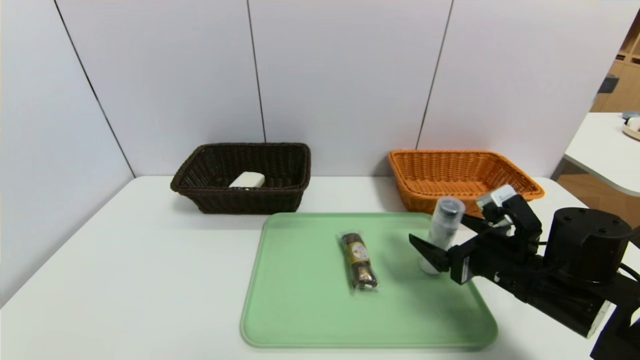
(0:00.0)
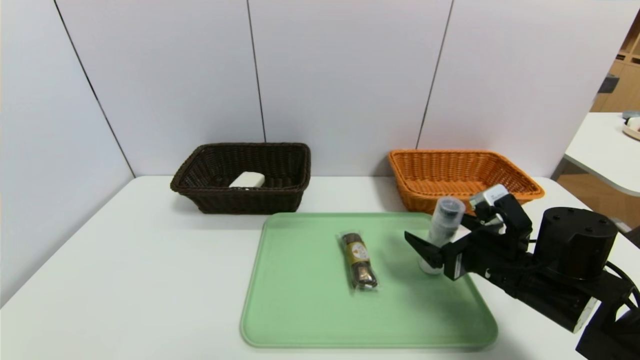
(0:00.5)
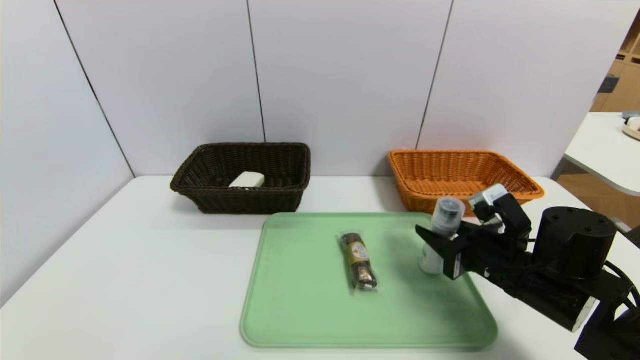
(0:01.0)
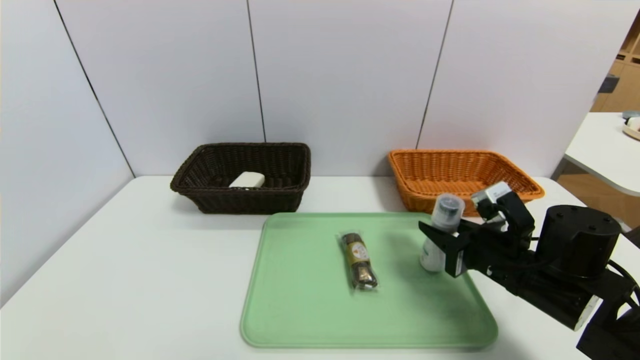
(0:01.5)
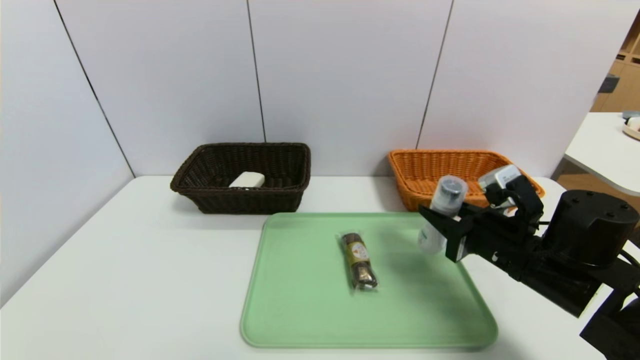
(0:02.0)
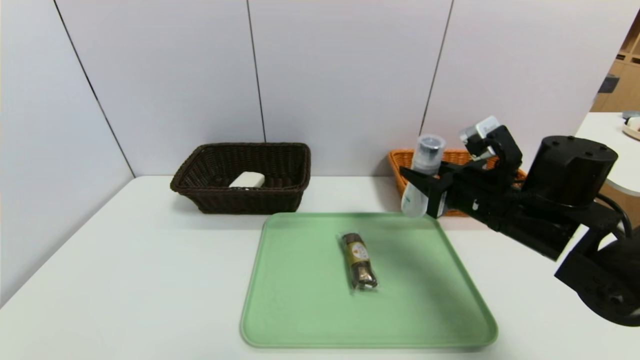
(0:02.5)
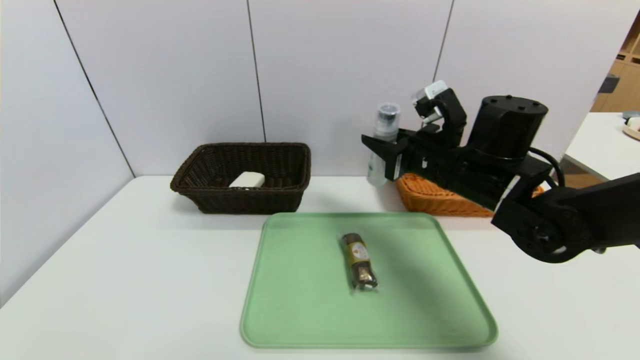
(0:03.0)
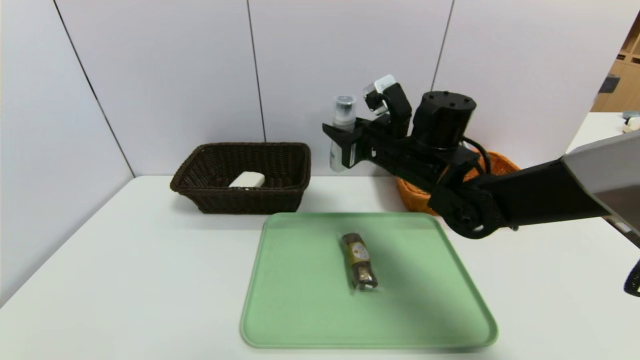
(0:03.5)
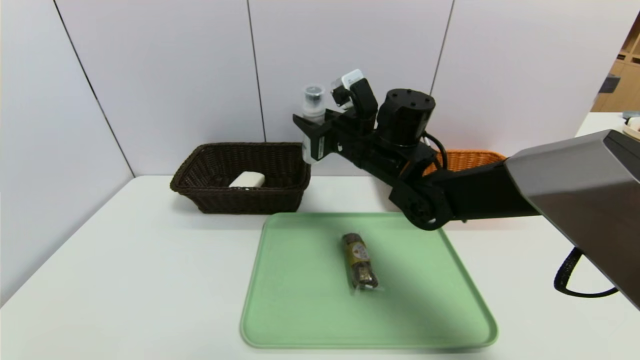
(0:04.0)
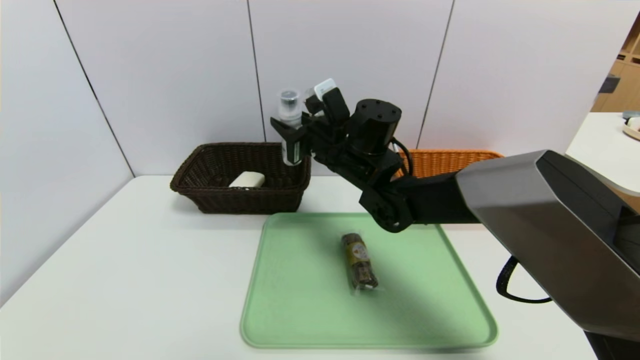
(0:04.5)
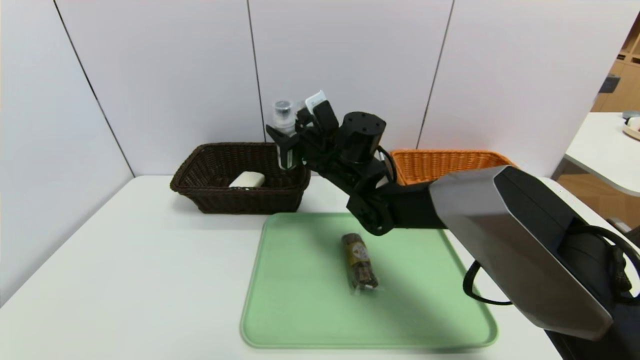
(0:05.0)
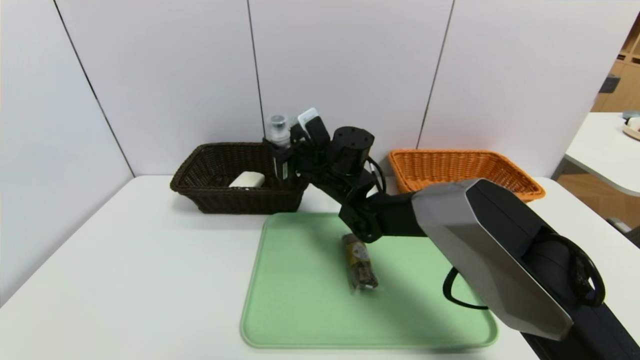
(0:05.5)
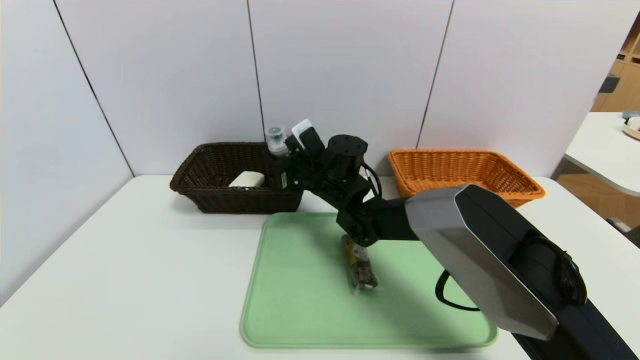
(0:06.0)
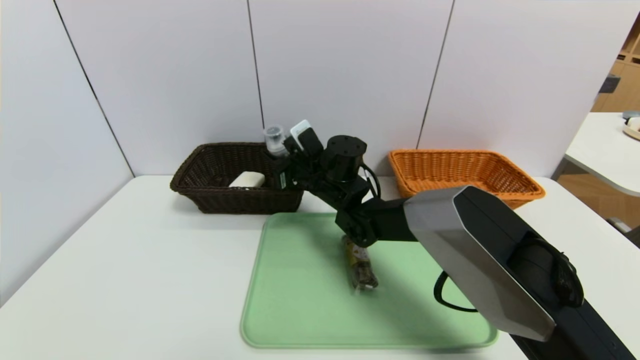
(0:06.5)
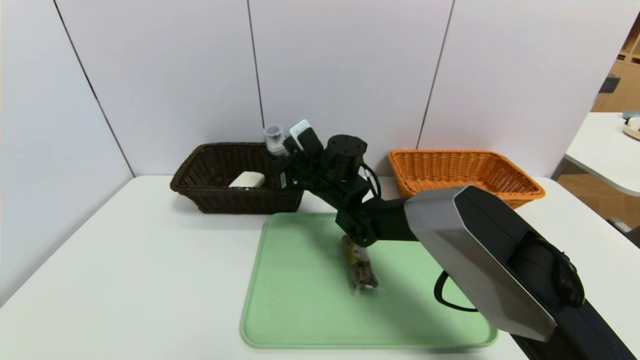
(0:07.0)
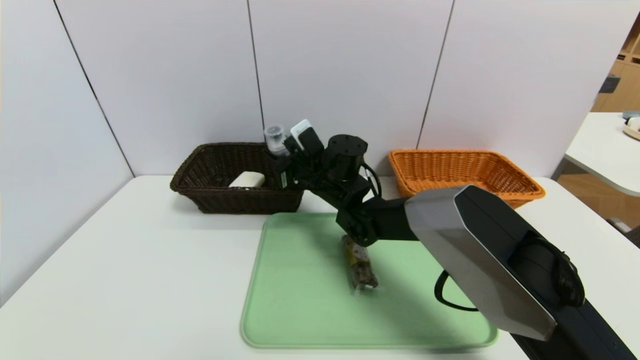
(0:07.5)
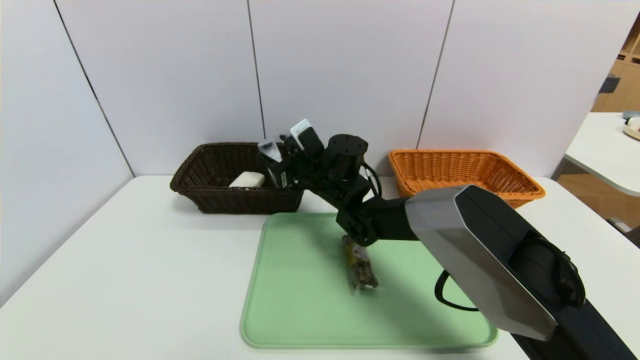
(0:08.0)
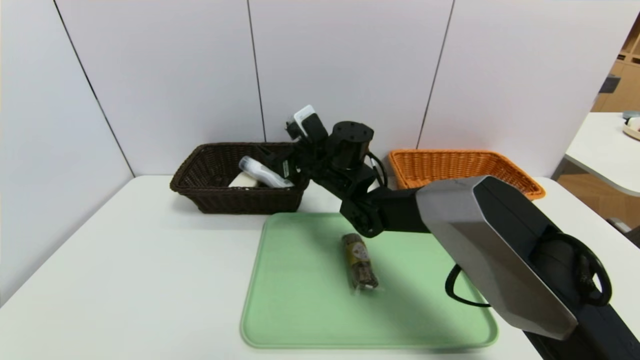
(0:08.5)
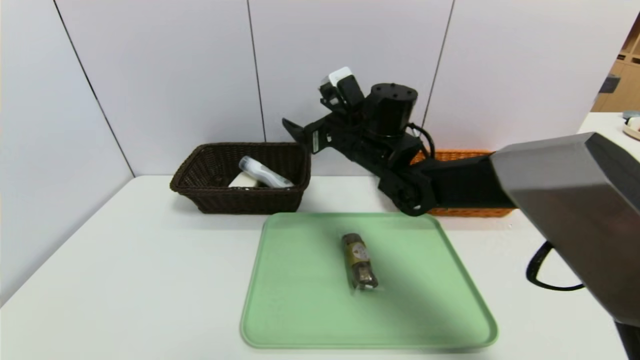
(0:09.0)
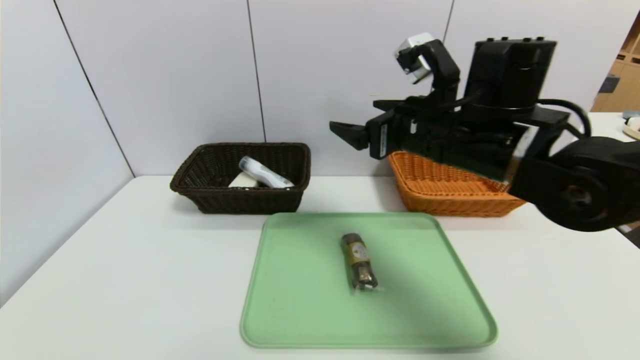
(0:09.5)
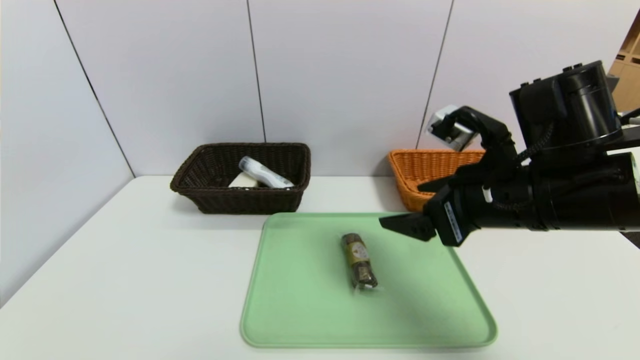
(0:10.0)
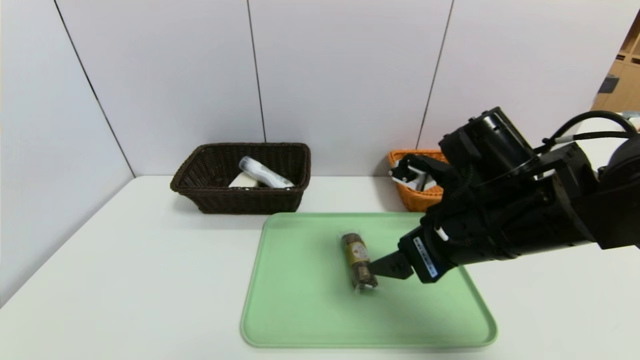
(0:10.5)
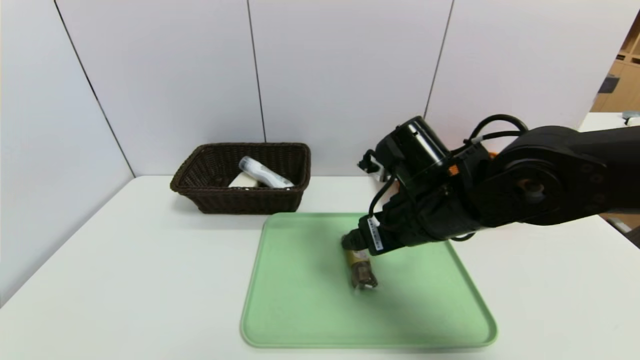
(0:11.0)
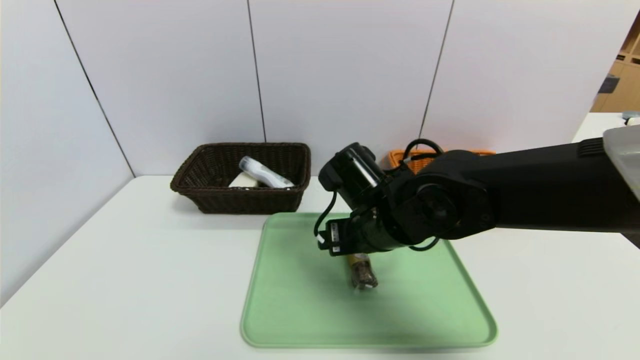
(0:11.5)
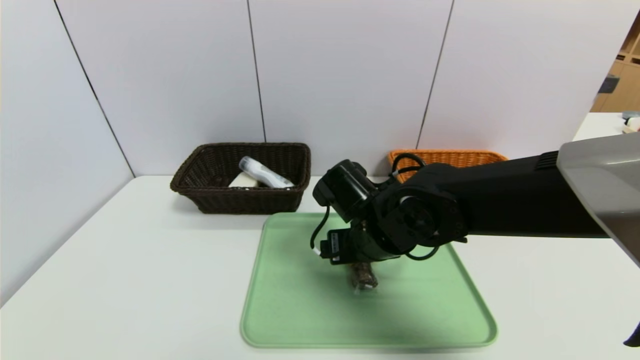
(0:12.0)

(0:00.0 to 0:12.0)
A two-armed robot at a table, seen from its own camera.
Task of the whole recording: place the food in the right basket with the right gripper, and place the non food items in the left basket with the left gripper.
0:00.0 - 0:02.0: The right gripper closes.
0:02.0 - 0:04.0: The right gripper is displaced to the left, forward and upward by about 25 cm.
0:04.0 - 0:06.0: The right gripper is displaced downward and to the left by roughly 10 cm.
0:06.0 - 0:08.0: Neither gripper changes place.
0:08.0 - 0:10.0: The right gripper travels backward, to the right and upward by roughly 30 cm, and opens its fingers.
0:10.0 - 0:12.0: The right gripper shifts about 15 cm to the left, downward and forward.

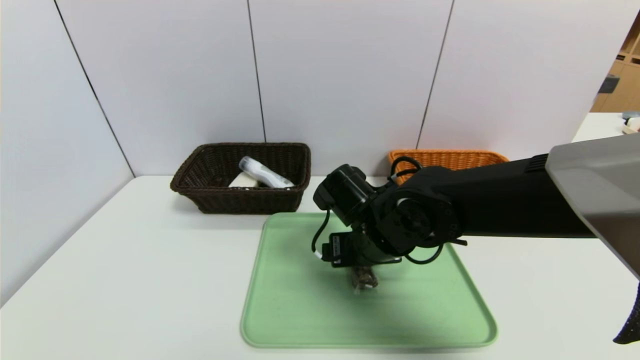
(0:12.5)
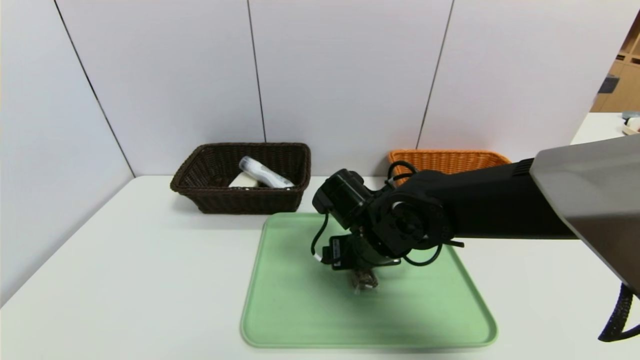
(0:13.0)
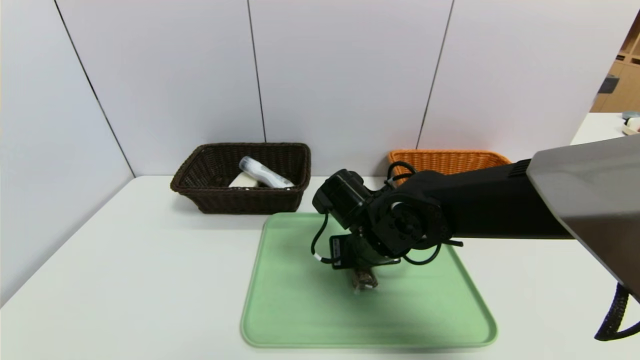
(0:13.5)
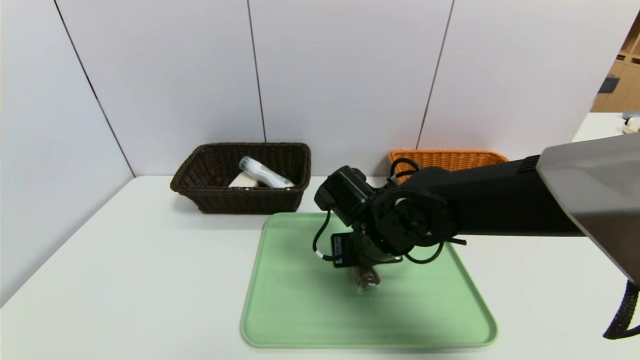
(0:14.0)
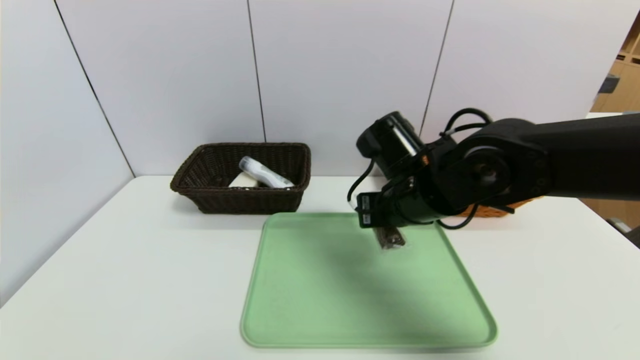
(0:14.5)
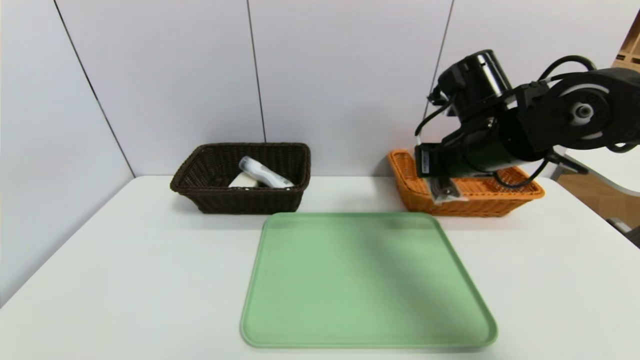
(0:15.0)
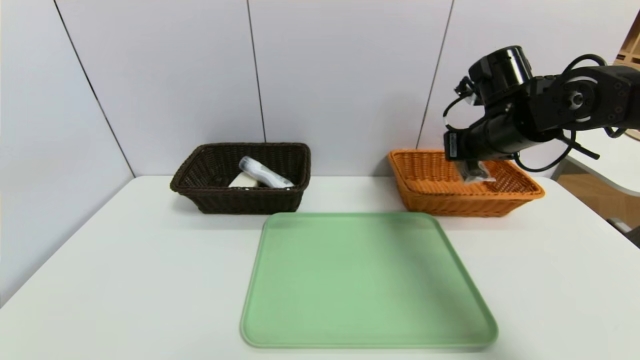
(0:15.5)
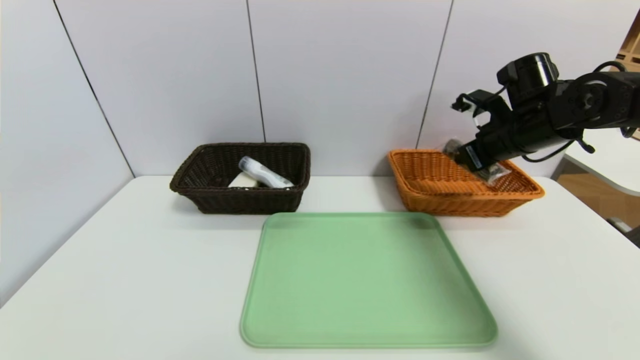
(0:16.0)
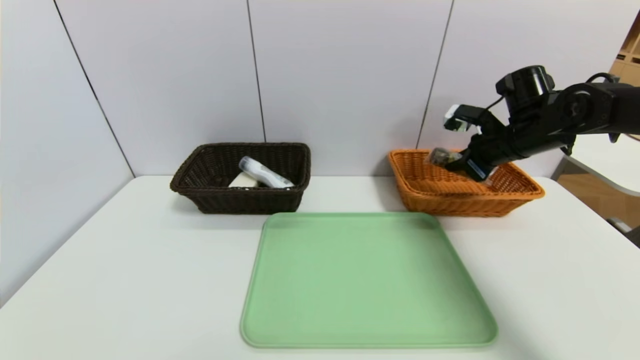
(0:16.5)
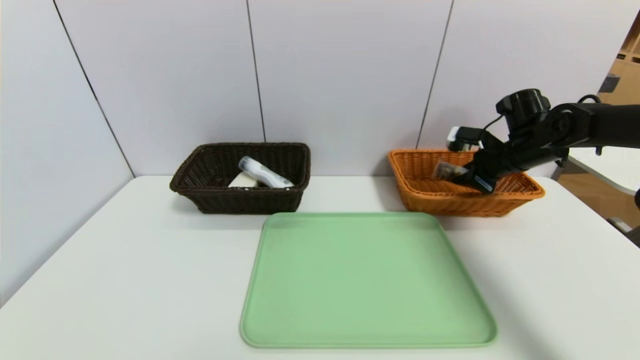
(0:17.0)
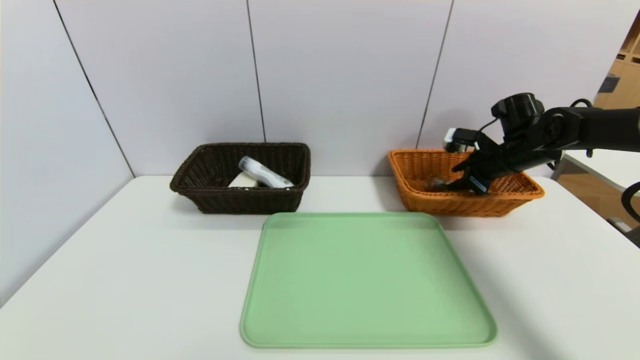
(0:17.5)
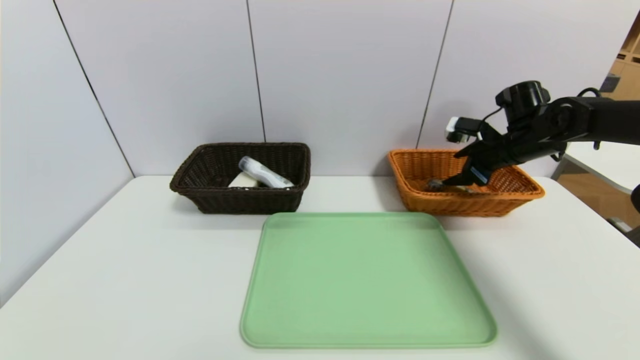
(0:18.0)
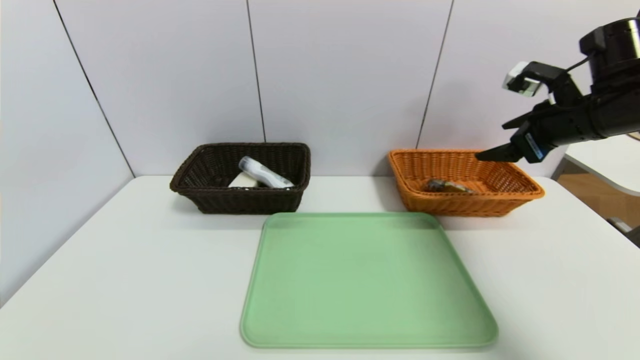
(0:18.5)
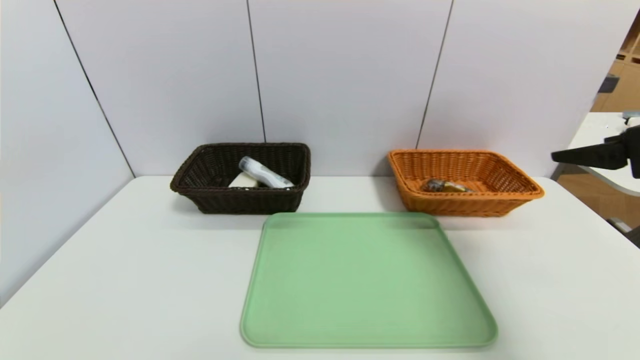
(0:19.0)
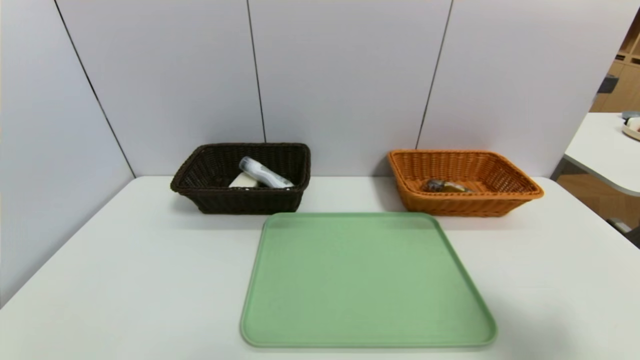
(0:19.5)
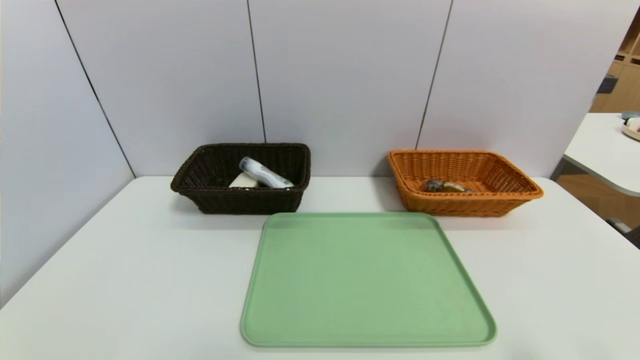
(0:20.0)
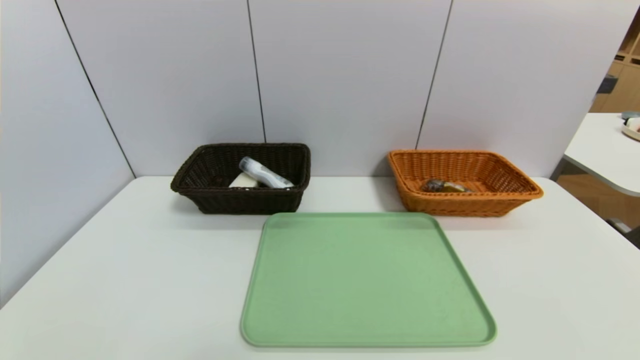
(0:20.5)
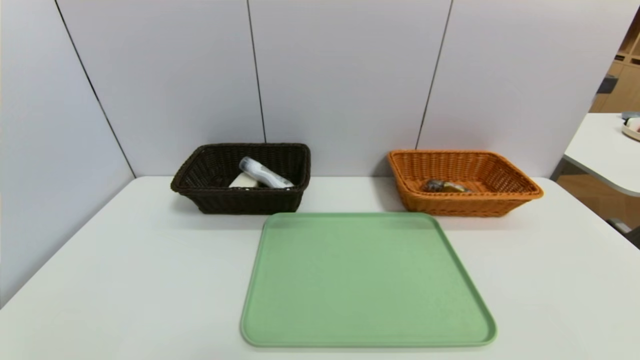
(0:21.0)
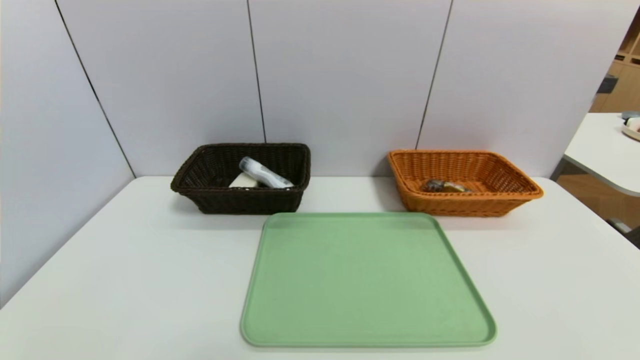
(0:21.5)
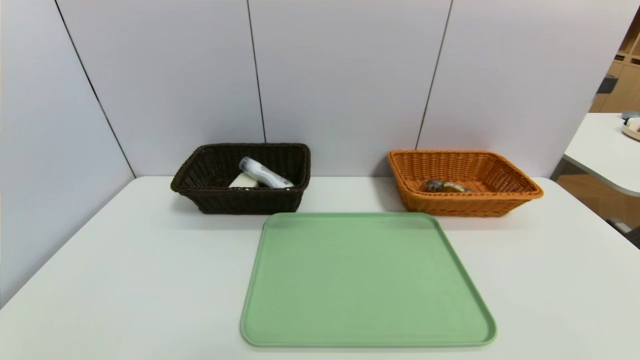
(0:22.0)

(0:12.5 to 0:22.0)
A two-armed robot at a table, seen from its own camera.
Task of the whole recording: place the food in the right basket with the right gripper, and place the non food items in the left basket with the left gripper.
Step, 0:12.5 - 0:17.5: Grasp the chocolate and put it in the right basket.
0:12.5 - 0:14.5: The right gripper goes some 10 cm upward and to the right, and closes.
0:14.5 - 0:16.5: The right gripper moves to the right and forward, about 25 cm.
0:16.5 - 0:18.0: The right gripper opens.
0:18.0 - 0:20.0: The right gripper travels backward by approximately 40 cm.
